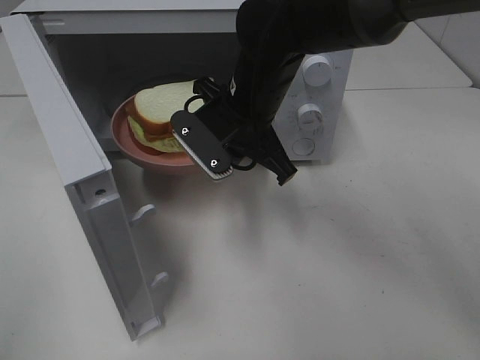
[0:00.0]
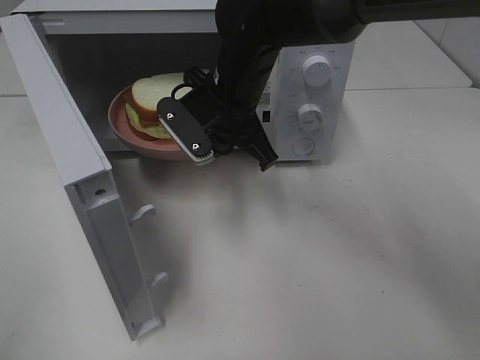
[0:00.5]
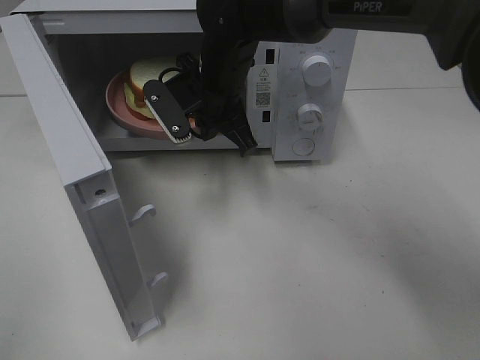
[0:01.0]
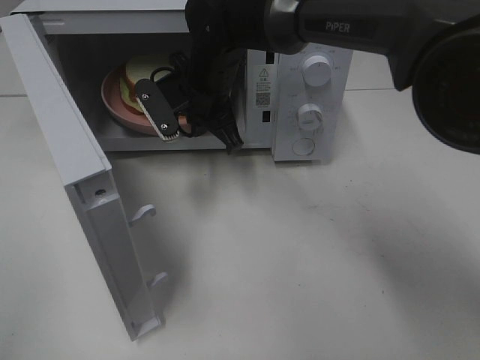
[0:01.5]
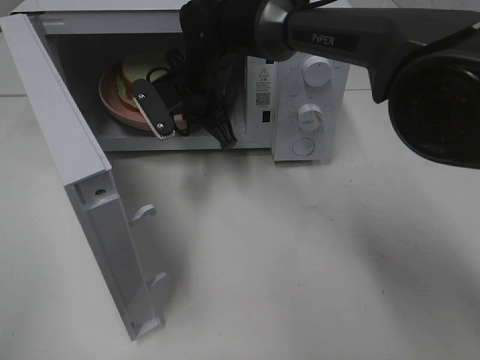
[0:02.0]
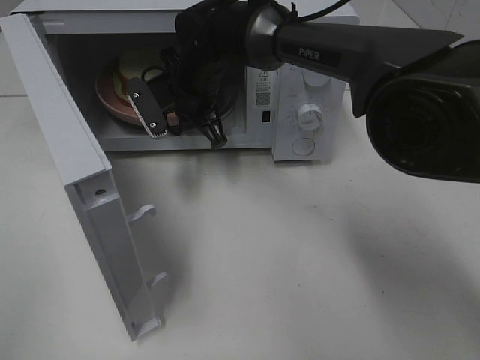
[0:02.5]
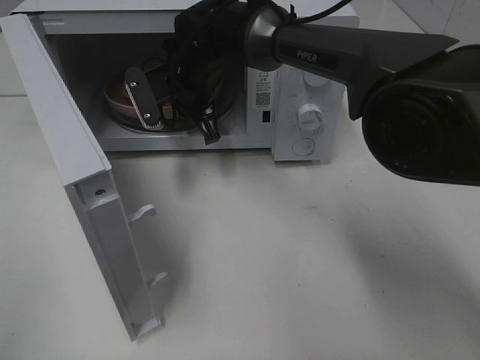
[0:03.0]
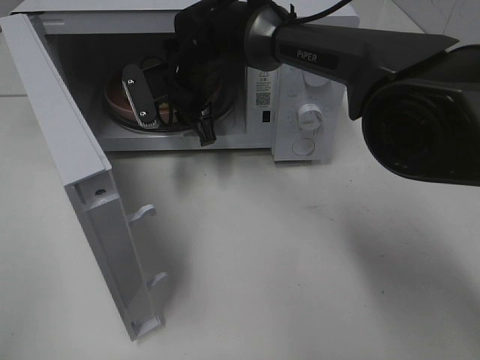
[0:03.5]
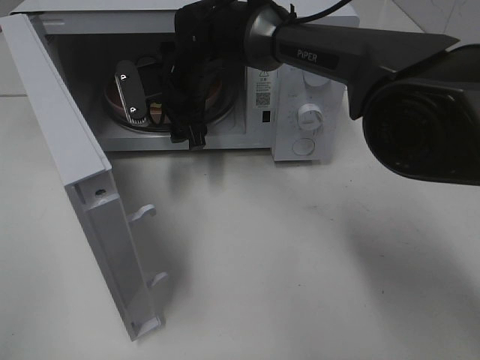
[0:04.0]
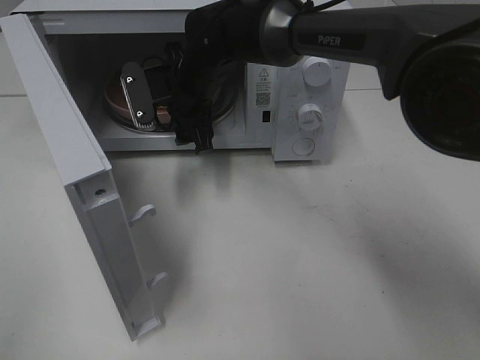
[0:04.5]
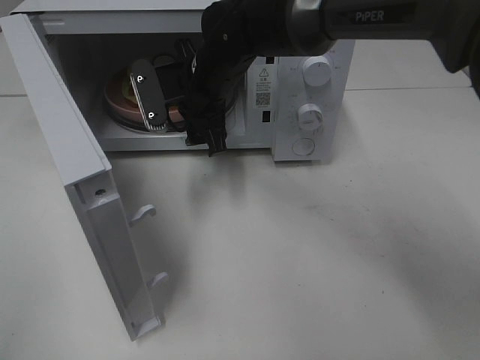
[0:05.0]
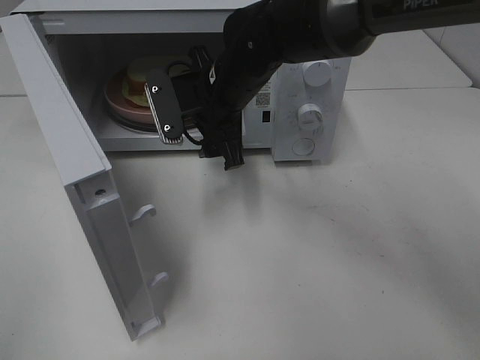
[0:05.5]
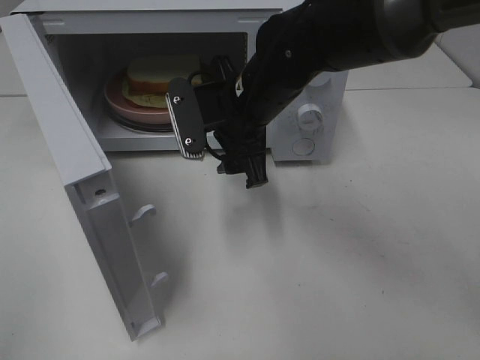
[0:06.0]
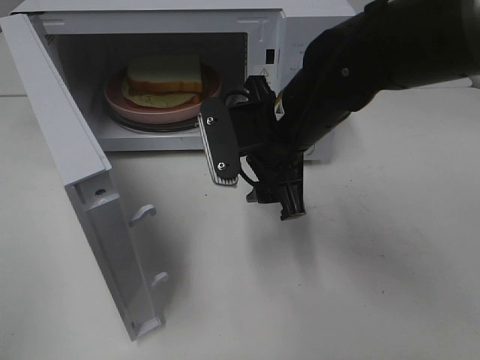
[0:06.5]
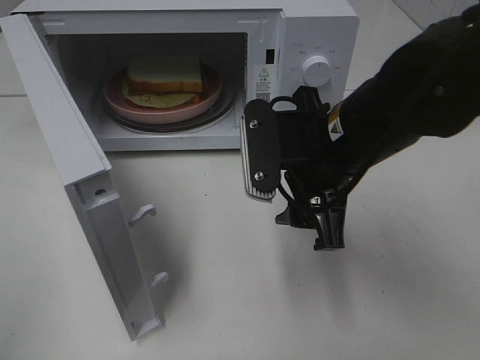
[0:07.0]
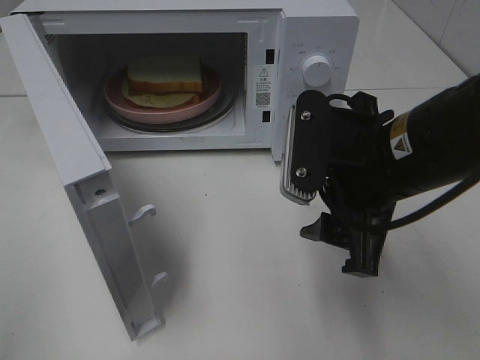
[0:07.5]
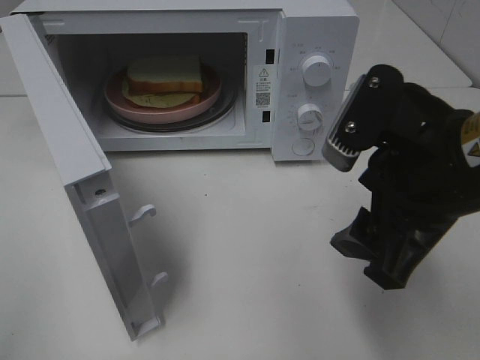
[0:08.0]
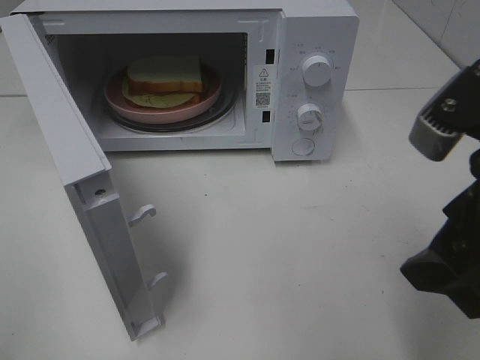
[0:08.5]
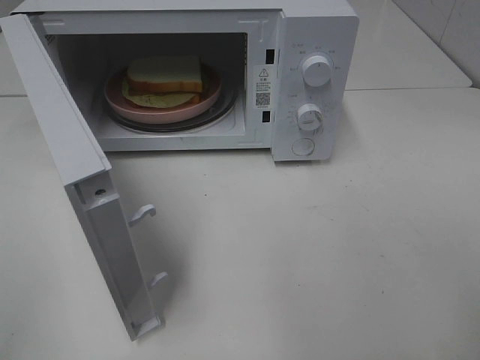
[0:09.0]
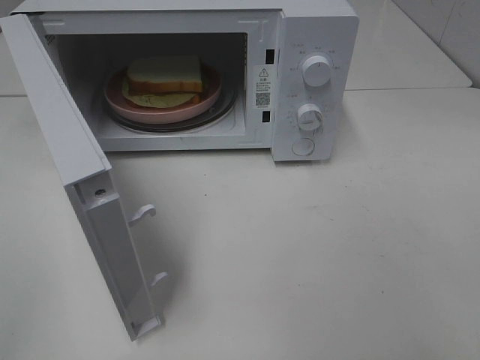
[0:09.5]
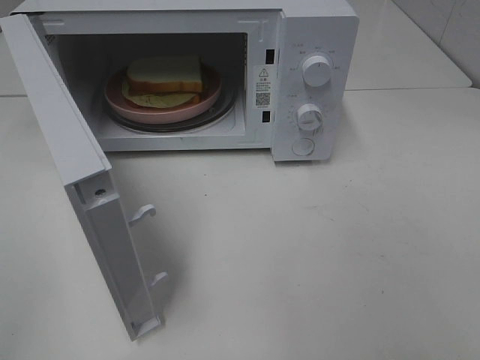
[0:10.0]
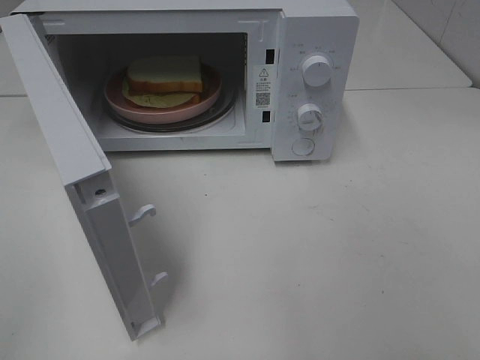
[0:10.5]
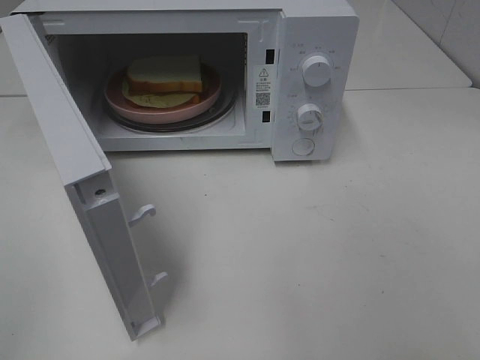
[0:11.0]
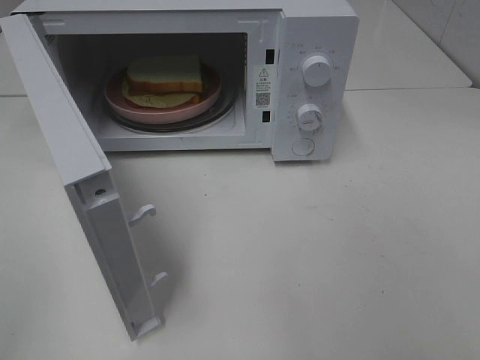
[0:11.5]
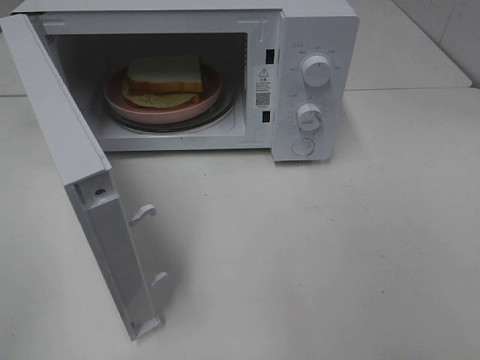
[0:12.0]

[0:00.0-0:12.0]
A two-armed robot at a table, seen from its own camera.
Task of the whole recording: Heat Sandwich.
Step, 0:00.0 to 0:05.0: Right hand: place the plate in the microwave.
0:00.0 to 0:02.0: The right gripper shifts approximately 10 cm forward and to the left.
0:02.0 to 0:04.0: The right gripper opens up.
0:04.0 to 0:06.0: The right gripper travels backward and to the right by some 15 cm.
0:06.0 to 0:08.0: The right gripper heads backward and to the right, covering approximately 20 cm.
0:08.0 to 0:10.0: The right gripper travels backward and to the right by about 20 cm.

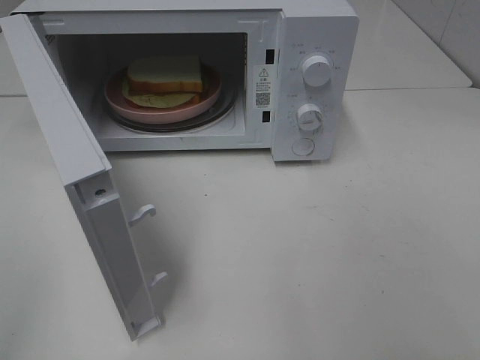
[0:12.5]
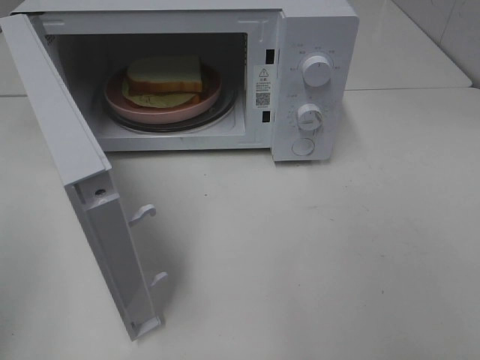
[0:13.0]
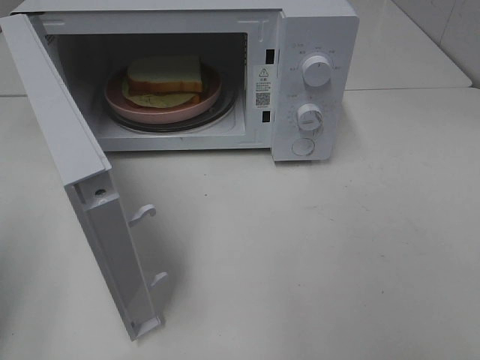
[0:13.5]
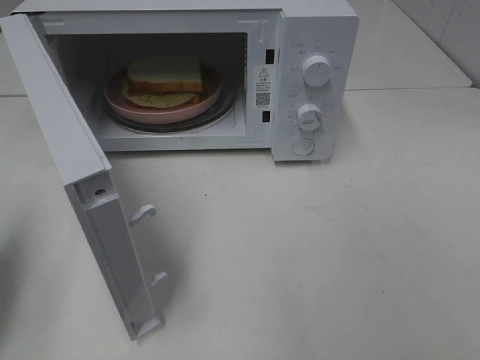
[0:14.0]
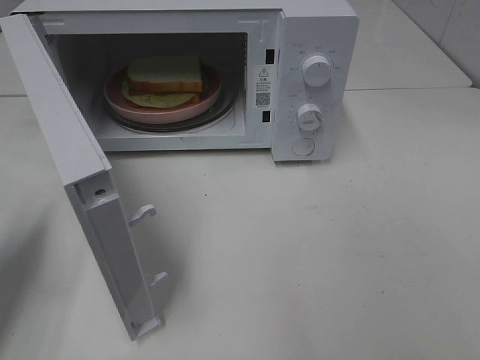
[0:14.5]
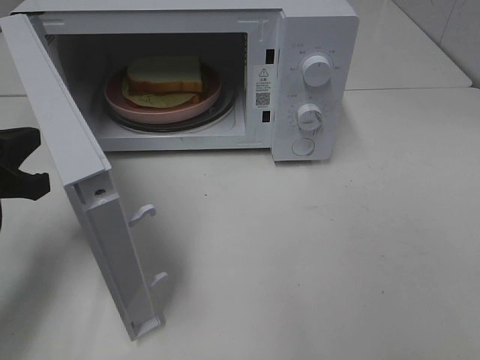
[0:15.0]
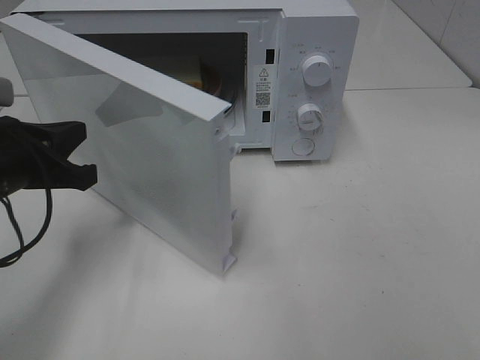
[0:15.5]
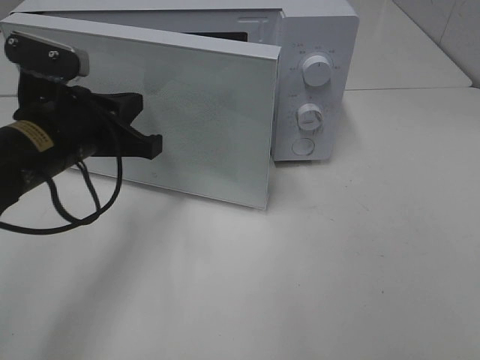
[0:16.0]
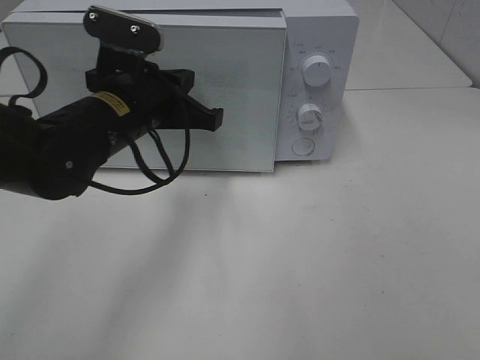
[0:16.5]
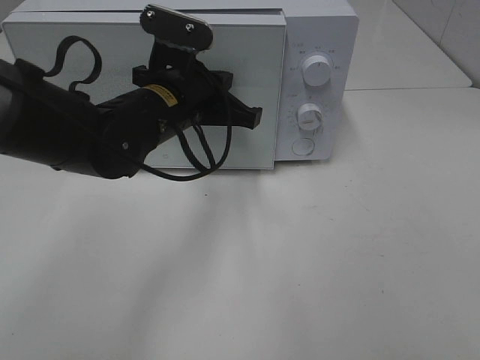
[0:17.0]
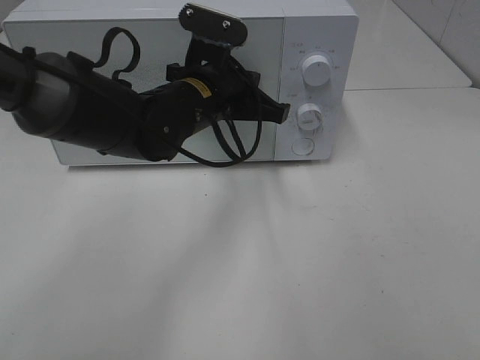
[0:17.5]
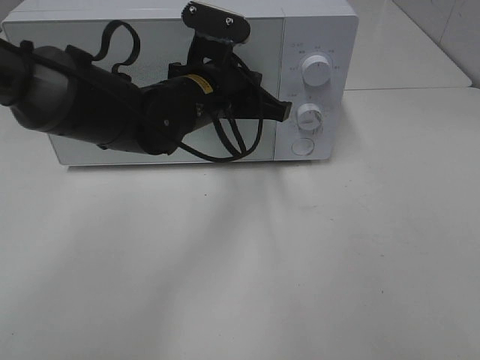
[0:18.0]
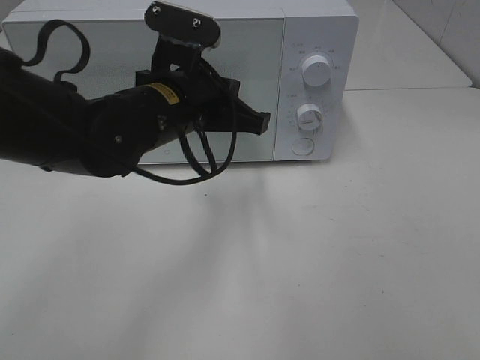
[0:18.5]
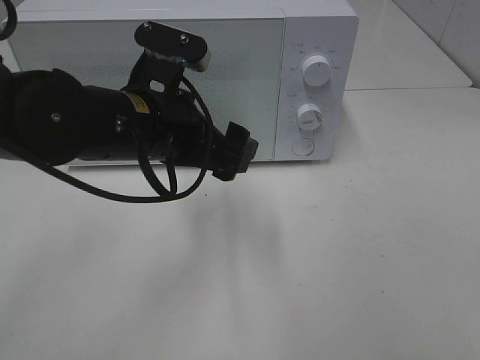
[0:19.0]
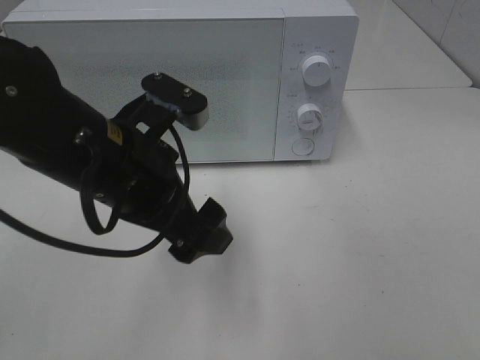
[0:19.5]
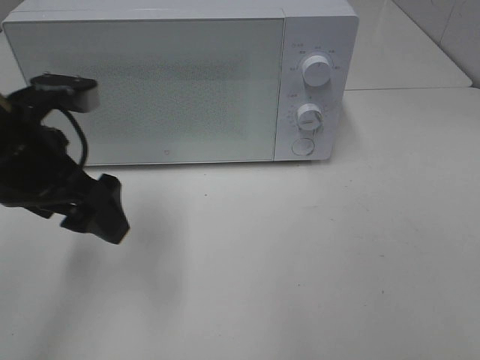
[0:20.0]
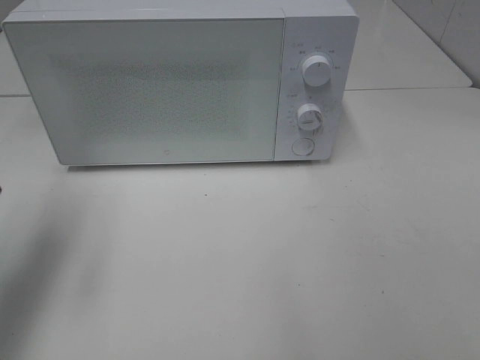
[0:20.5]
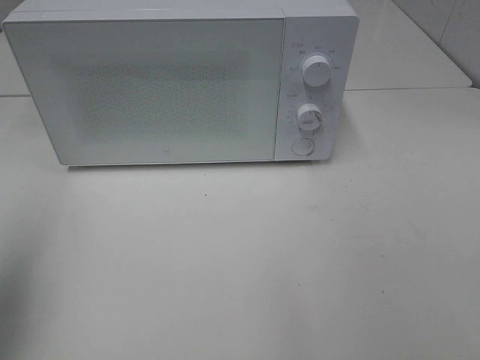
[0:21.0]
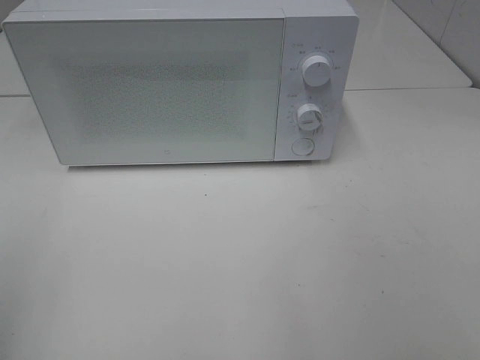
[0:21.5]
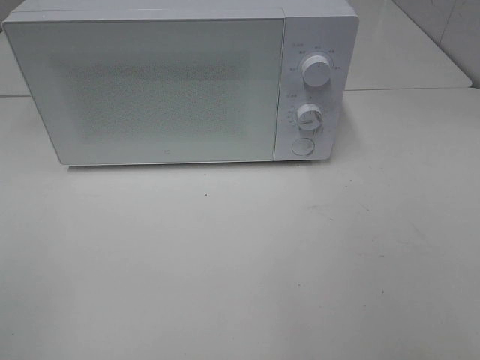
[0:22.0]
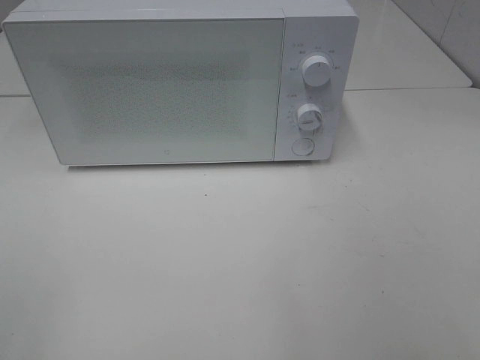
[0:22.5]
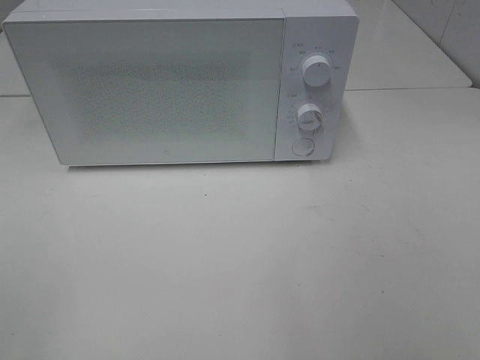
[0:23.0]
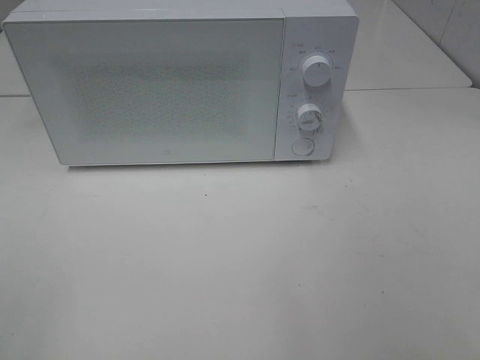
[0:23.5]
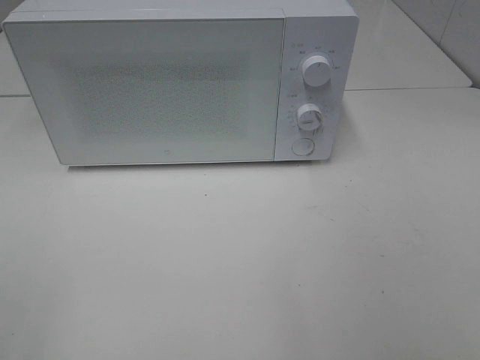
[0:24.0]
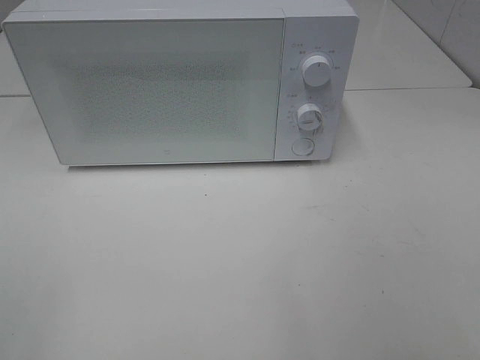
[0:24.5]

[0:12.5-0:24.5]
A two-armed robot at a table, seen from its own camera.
Task of the whole recording: Heat Sandwich.
Step, 0:12.5 to 0:18.0: Left hand: close the microwave door.
0:12.5 to 0:14.5: The left gripper goes approximately 20 cm forward and downward, and closes up.
0:14.5 to 0:16.5: The left gripper travels to the right and forward by about 25 cm.
0:18.5 to 0:20.5: The left gripper heads to the left, covering roughly 25 cm, and opens its fingers.
0:20.5 to 0:22.5: The left gripper is displaced backward by roughly 25 cm.
0:22.5 to 0:24.5: The two grippers keep their place.

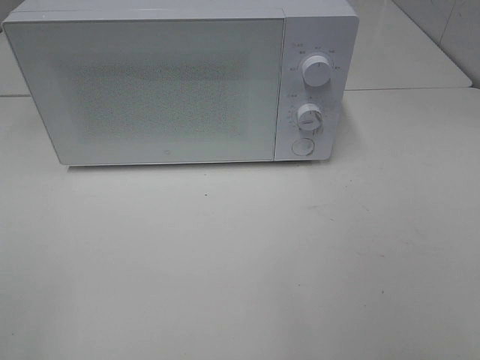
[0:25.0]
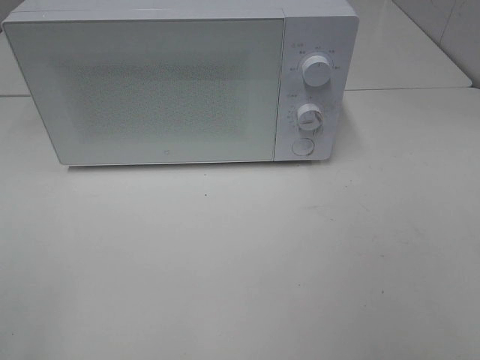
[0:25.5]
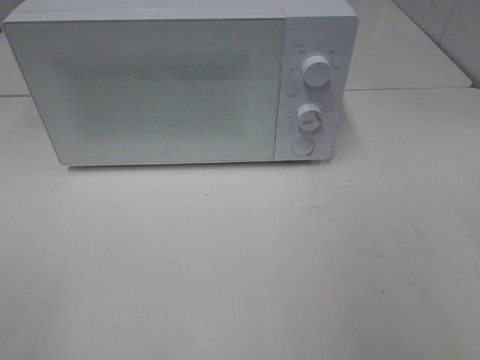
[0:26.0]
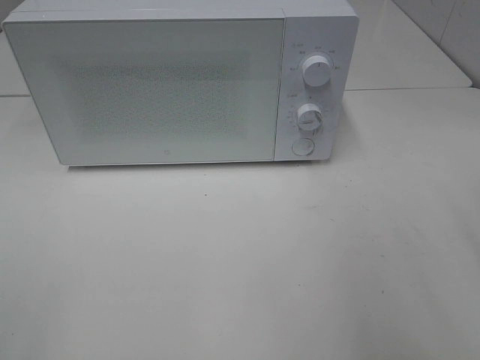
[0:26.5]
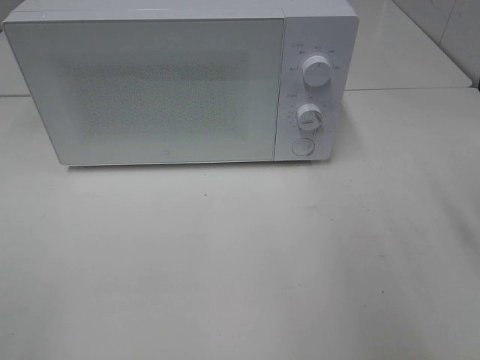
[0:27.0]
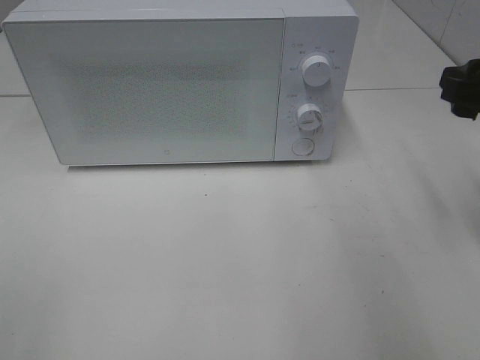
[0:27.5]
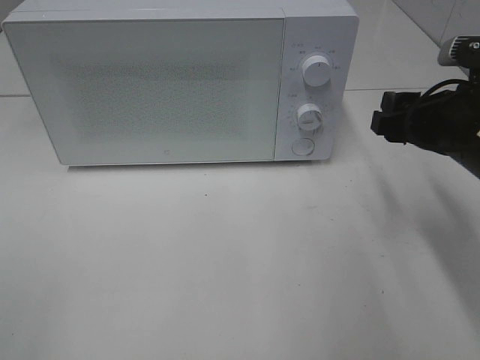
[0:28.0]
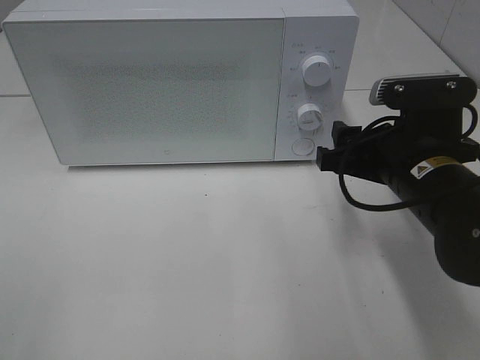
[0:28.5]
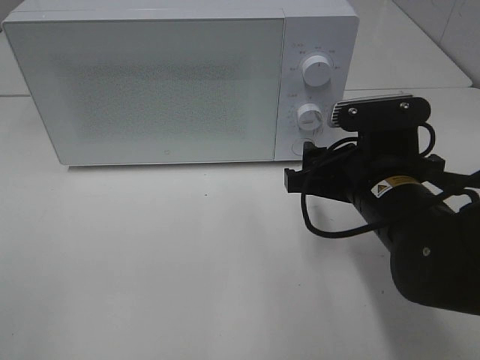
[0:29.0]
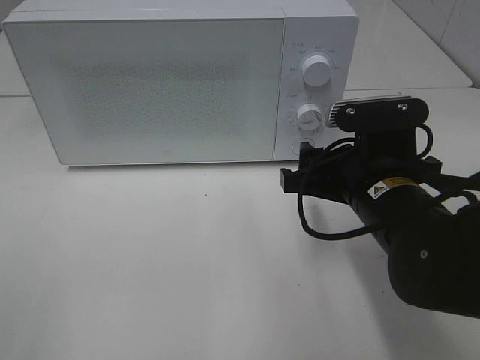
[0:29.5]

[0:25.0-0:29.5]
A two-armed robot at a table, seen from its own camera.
Task of the whole recording: Heat Sandwich.
0:27.0 to 0:29.5: The right gripper is displaced to the left and downward by some 20 cm.
